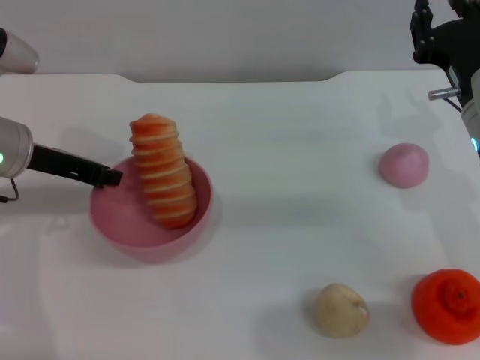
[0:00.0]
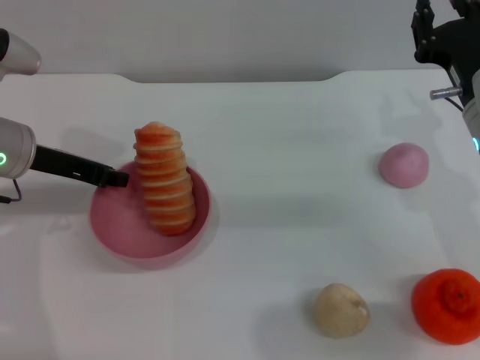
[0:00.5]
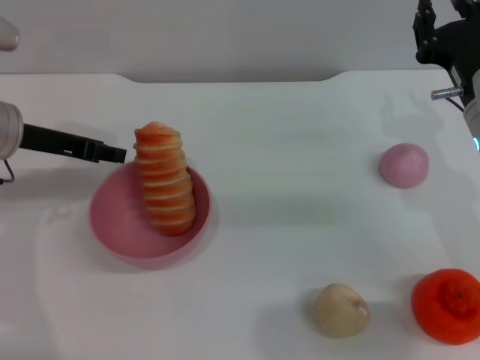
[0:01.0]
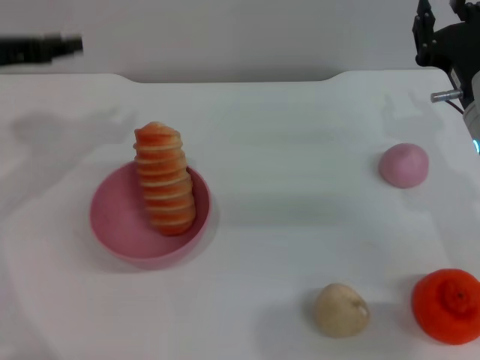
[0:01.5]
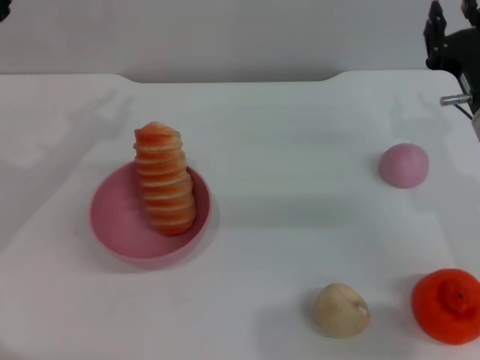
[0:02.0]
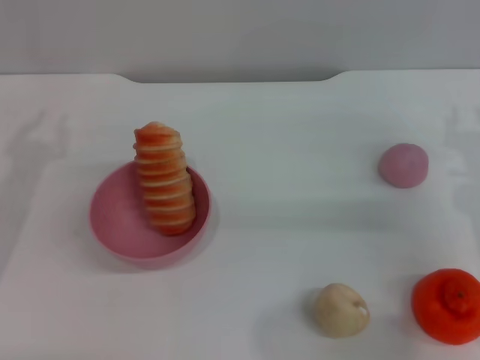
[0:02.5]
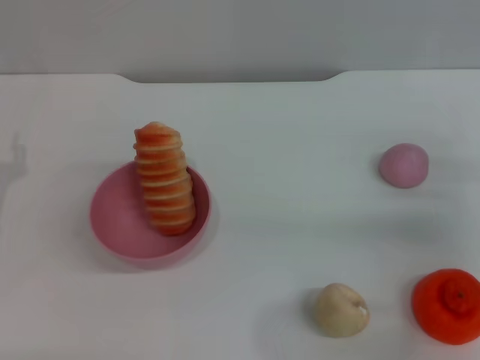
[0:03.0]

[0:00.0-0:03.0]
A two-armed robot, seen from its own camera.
Task of the whole recording: put the bread into the pink bowl and pour it out repeatedly.
0:00.0 to 0:01.5: The left gripper travels upward by some 5 cm.
0:01.5 to 0:03.0: The left gripper is displaced downward and backward by about 15 cm. The right gripper goes some 10 cm to the right and downward.

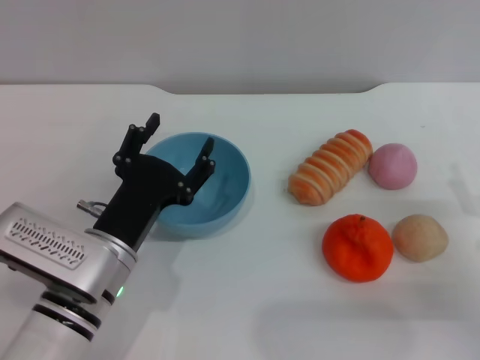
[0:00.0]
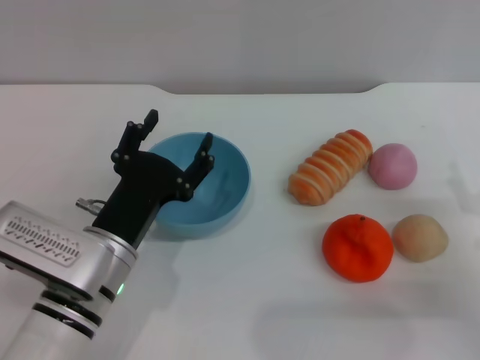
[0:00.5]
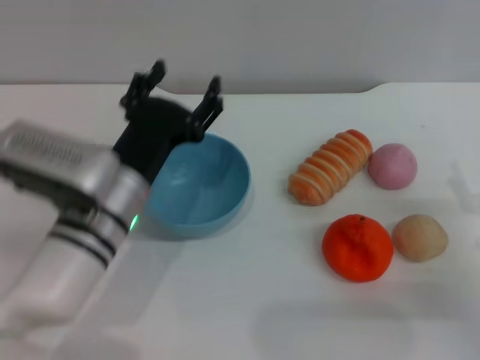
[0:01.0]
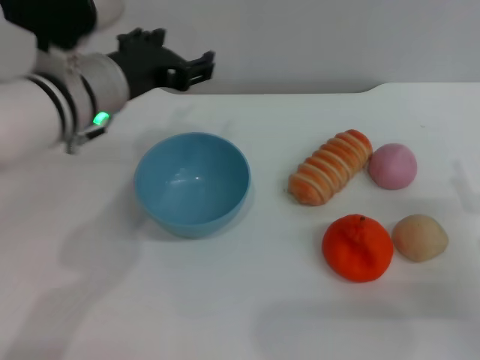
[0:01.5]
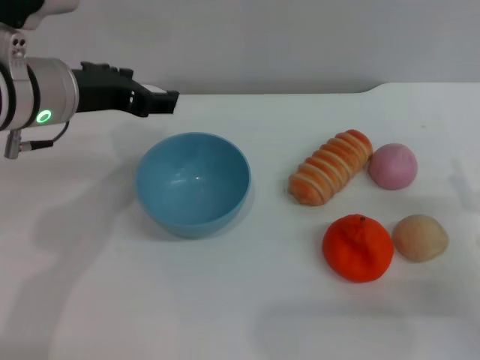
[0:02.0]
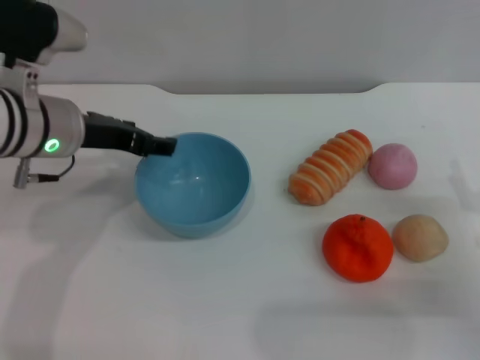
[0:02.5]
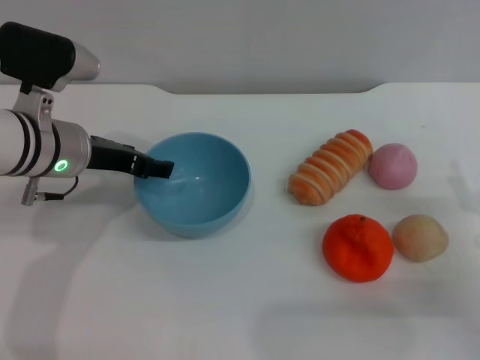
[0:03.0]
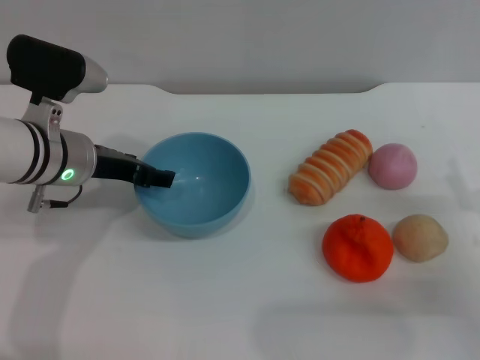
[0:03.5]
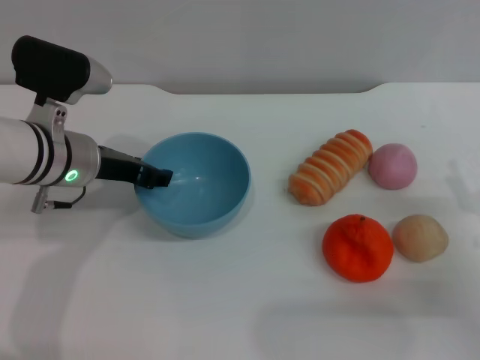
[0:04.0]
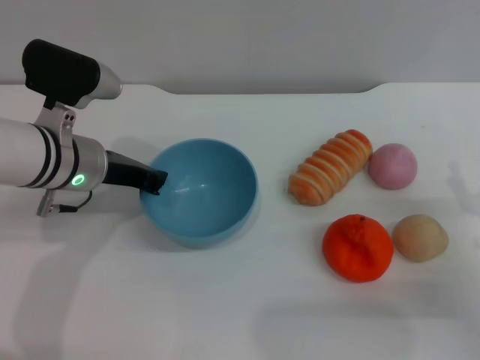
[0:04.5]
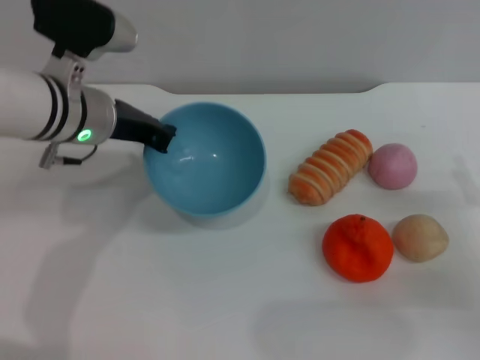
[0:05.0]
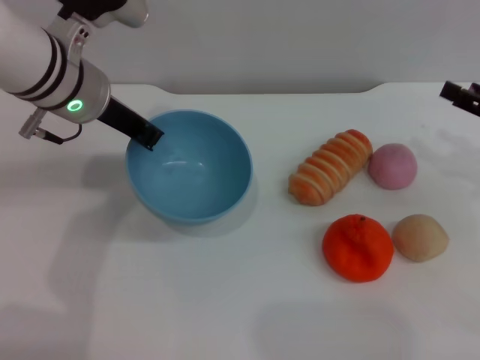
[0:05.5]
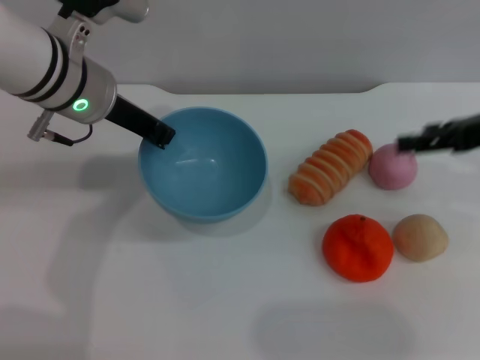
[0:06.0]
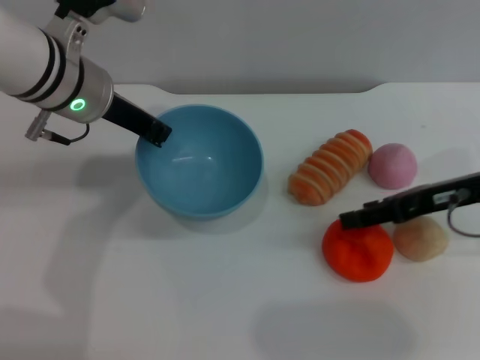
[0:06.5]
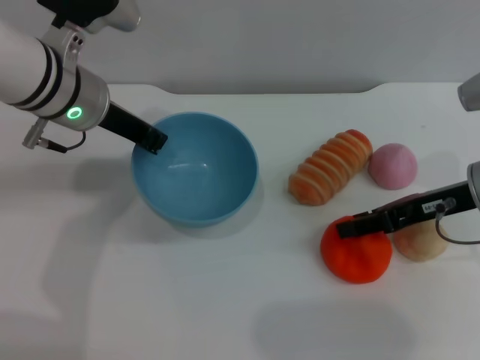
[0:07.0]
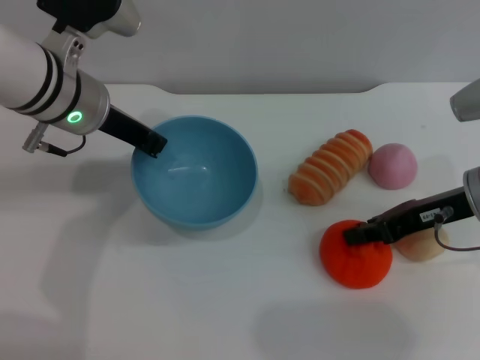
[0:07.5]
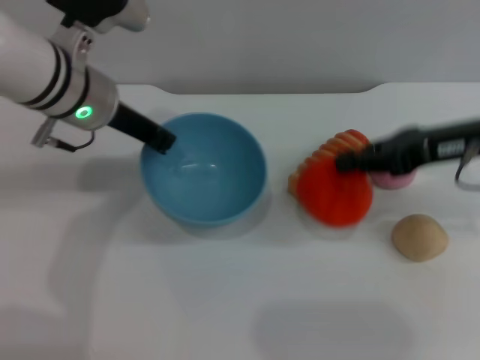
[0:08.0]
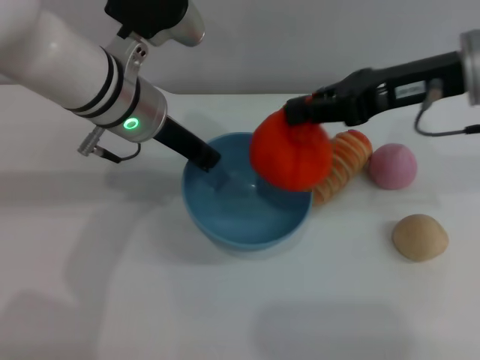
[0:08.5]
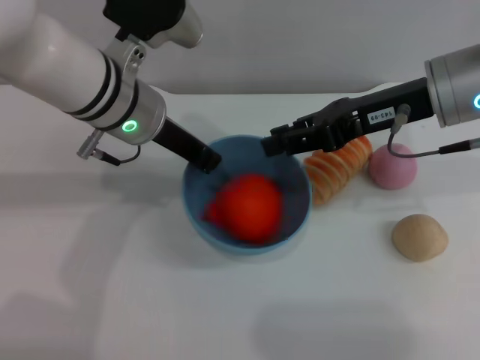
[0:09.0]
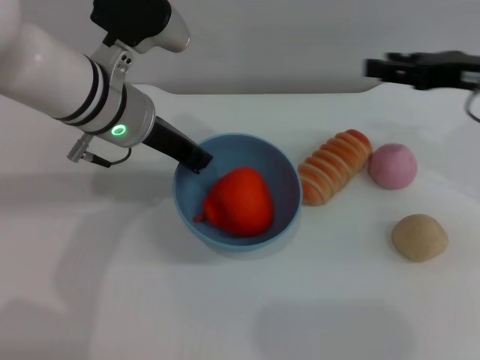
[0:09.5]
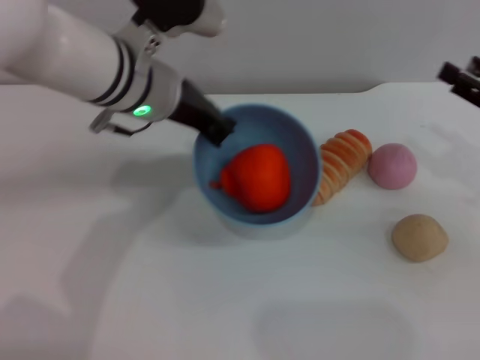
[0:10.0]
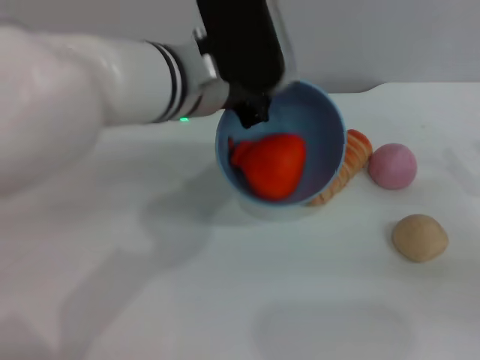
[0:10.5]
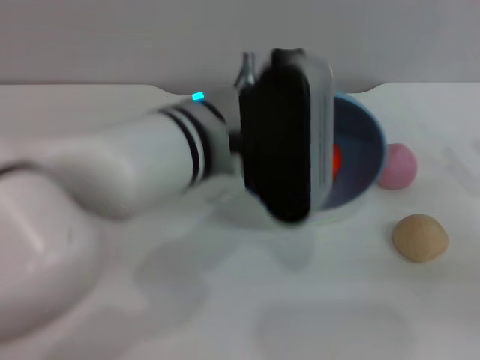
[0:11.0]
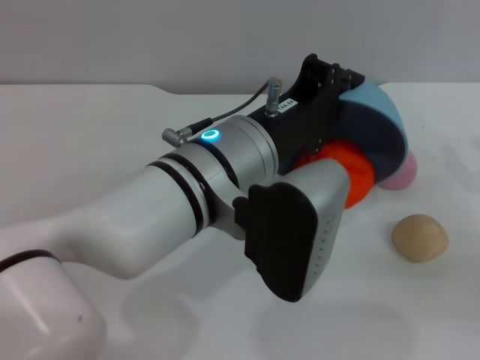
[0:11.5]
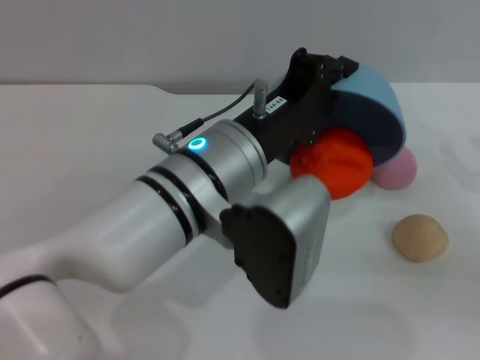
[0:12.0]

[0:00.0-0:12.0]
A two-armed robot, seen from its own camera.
Task of the whole recording: put the orange into the blue bowl and pour it out repeatedly.
Step, 0:00.0 to 0:05.0: Pick up the bowl with the left gripper.
Step, 0:06.0 to 0:08.0: Pick up the orange with the right gripper.
Step, 0:08.5 to 0:09.0: Place the orange into the bowl.
0:00.0 to 0:02.0: The left gripper travels upward and forward by approximately 20 cm.
0:02.0 to 0:04.0: The left gripper travels downward by some 10 cm.
0:04.0 to 0:06.0: The right gripper heads upward and forward, covering approximately 20 cm; the left gripper travels upward by some 10 cm, and closes.
0:06.0 to 0:08.0: The right gripper moves to the left, approximately 5 cm, and closes.
0:08.0 to 0:10.0: The right gripper is displaced to the right and downward by approximately 10 cm, and opens up. The left gripper shifts approximately 5 cm to the right.
0:10.0 to 0:12.0: The left gripper travels backward and to the right by about 15 cm; the right gripper changes place by roughly 5 cm.

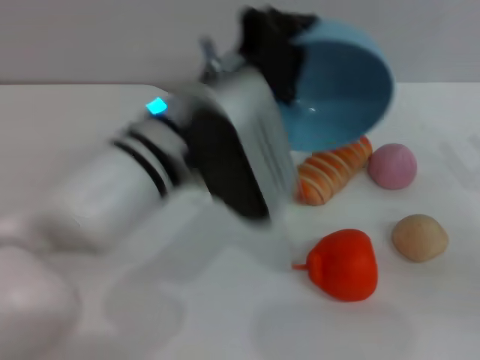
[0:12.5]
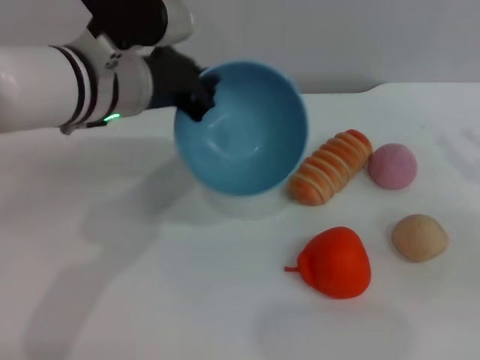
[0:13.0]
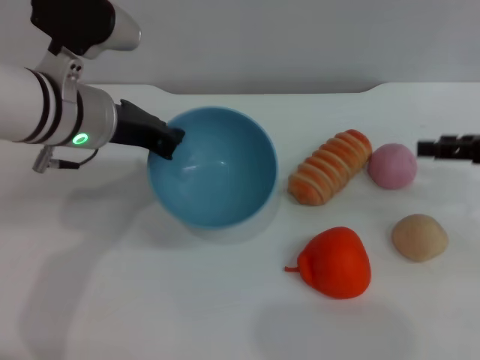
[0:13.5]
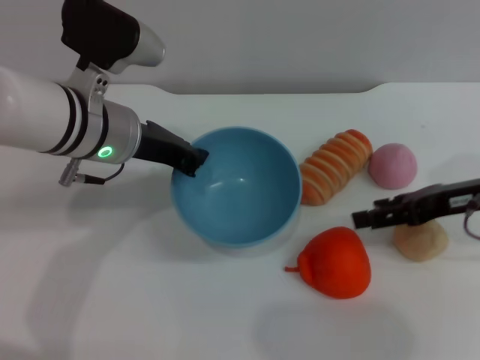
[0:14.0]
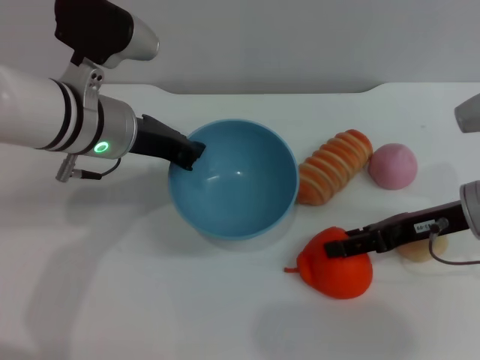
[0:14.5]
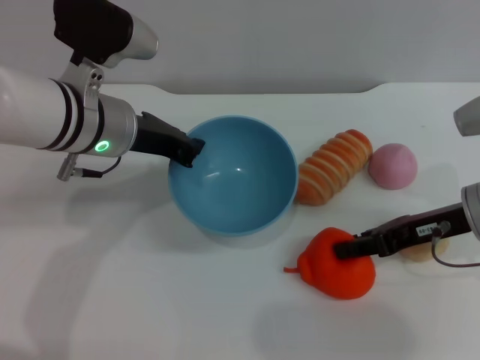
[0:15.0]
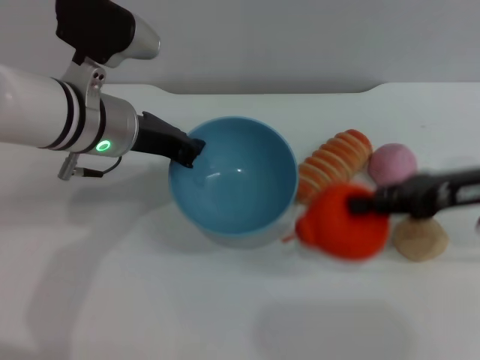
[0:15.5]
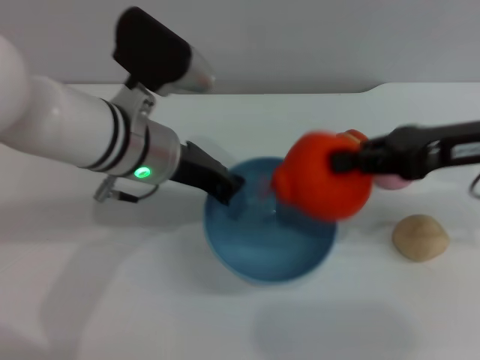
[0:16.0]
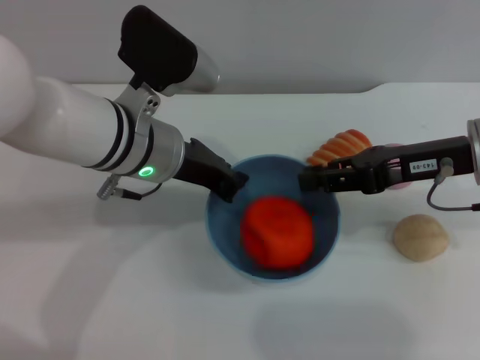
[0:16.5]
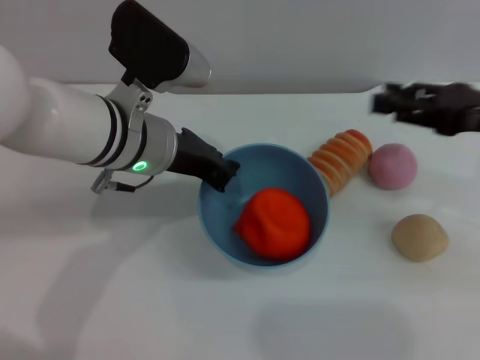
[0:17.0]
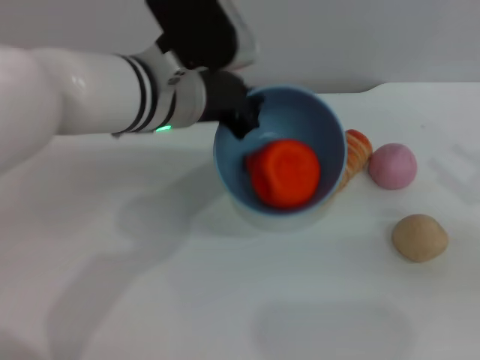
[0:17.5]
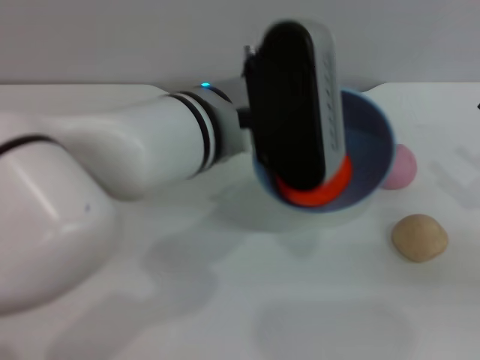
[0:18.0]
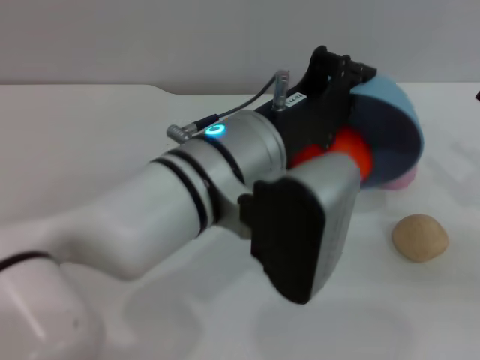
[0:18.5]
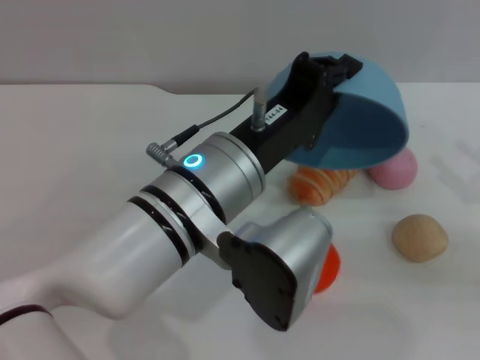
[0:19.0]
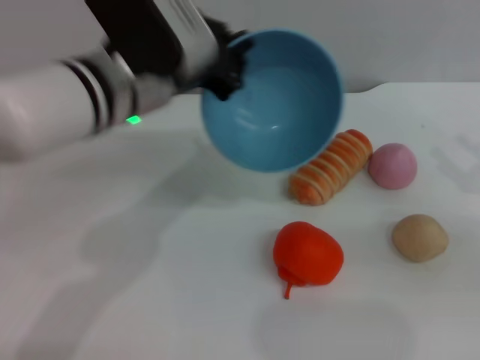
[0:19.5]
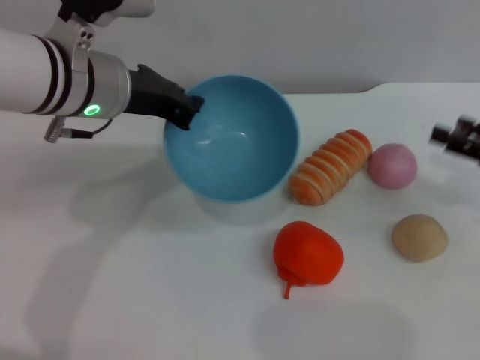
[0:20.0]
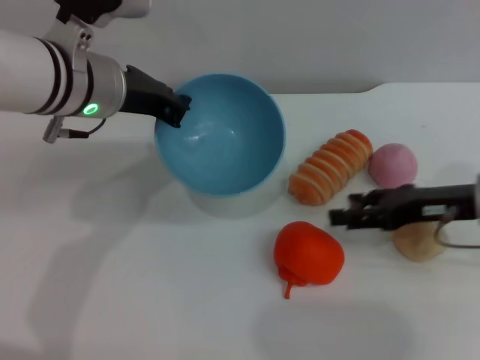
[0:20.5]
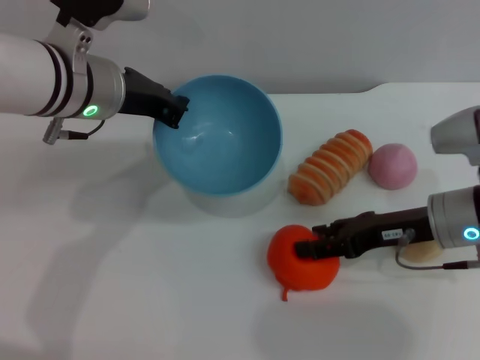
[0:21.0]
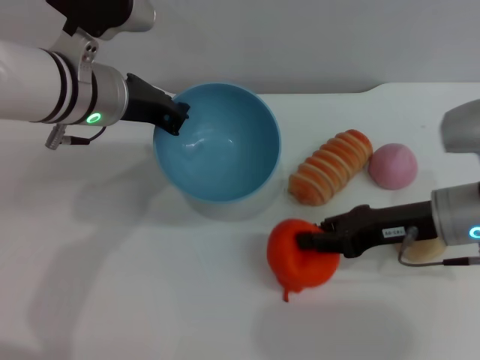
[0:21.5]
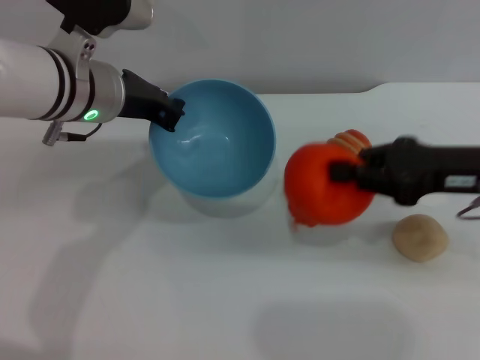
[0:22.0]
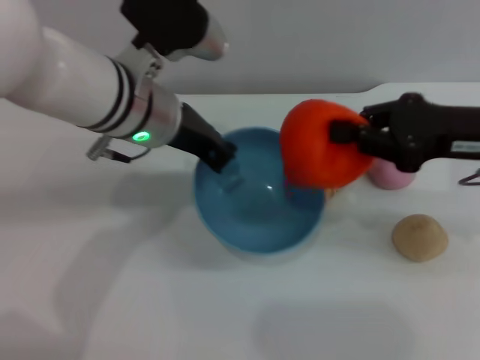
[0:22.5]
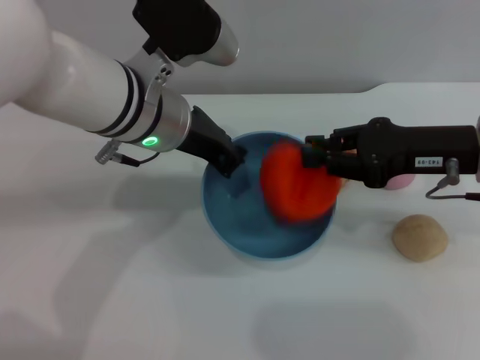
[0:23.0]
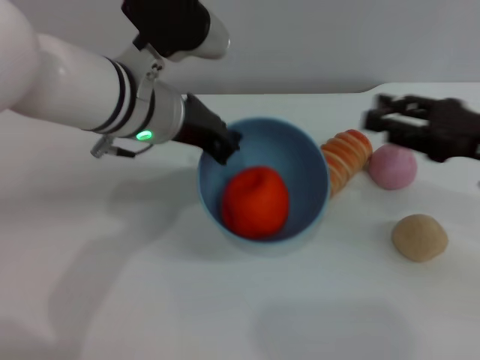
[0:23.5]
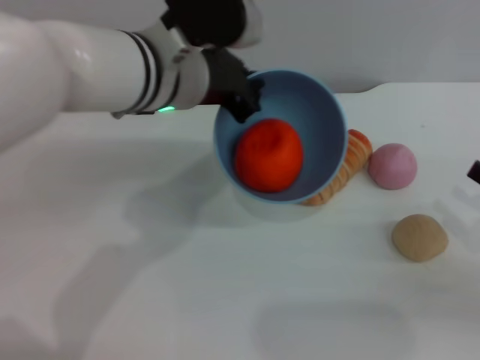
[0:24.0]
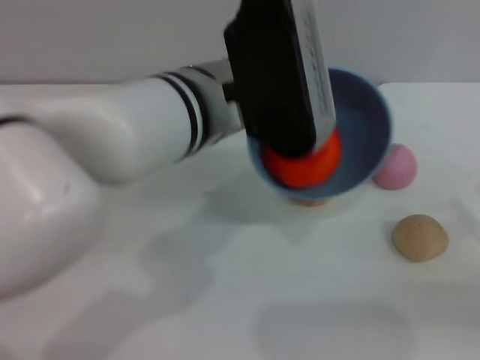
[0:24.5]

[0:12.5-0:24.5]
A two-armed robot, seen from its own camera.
Task of the whole recording: put the orange into the blue bowl and pour it out repeatedly.
Step, 0:12.5 to 0:15.5: Pick up the orange with the right gripper.
Step, 0:16.0 to 0:16.5: Place the orange into the bowl.
Step, 0:17.0 to 0:19.0: Pour the orange out of the bowl.
Step, 0:19.5 to 0:22.0: Pick up the orange with the right gripper.
Step, 0:22.5 to 0:23.0: Place the orange into the bowl.
0:12.5 to 0:14.5: The two grippers go approximately 10 cm to the left and forward.
0:14.5 to 0:16.5: The right gripper is displaced upward by some 5 cm, and closes.
0:16.5 to 0:18.5: The left gripper heads backward and to the right, covering some 10 cm; the right gripper moves to the right, backward and downward, approximately 15 cm, and opens up.
0:18.5 to 0:20.5: The two grippers go about 15 cm to the left and forward.
0:20.5 to 0:22.5: The right gripper travels upward by roughly 10 cm, and closes its fingers, while the left gripper shifts by some 5 cm.
0:22.5 to 0:24.5: The left gripper shifts roughly 10 cm to the right and backward. The right gripper is displaced to the right, downward and backward by roughly 20 cm, and opens up.
